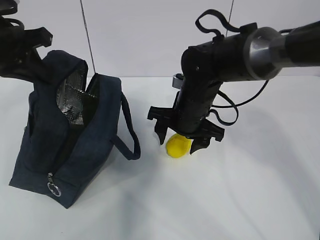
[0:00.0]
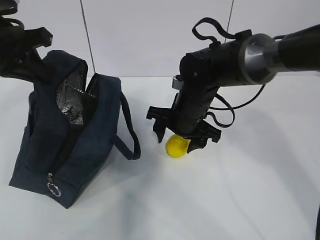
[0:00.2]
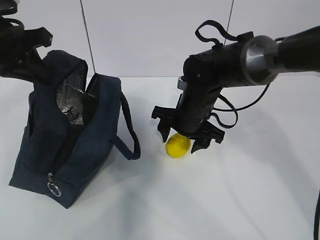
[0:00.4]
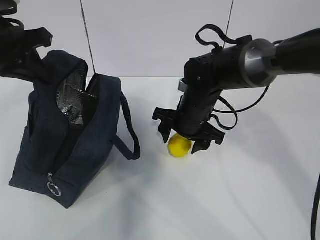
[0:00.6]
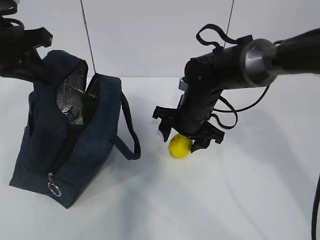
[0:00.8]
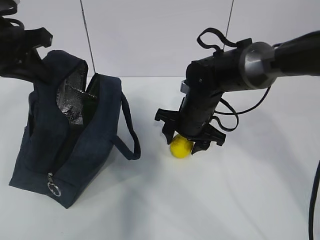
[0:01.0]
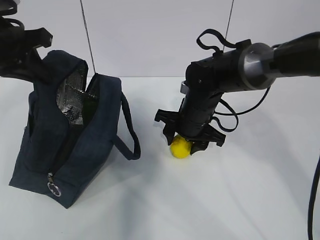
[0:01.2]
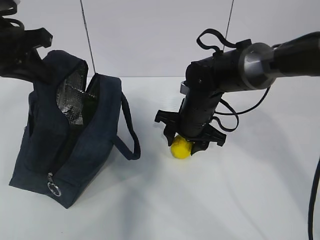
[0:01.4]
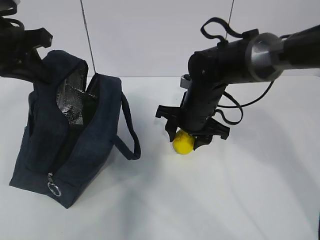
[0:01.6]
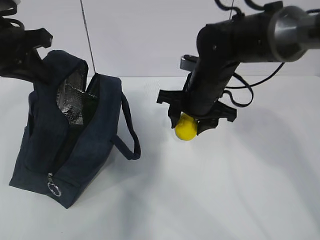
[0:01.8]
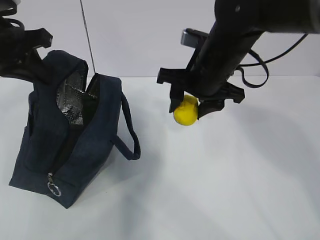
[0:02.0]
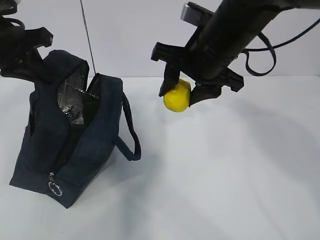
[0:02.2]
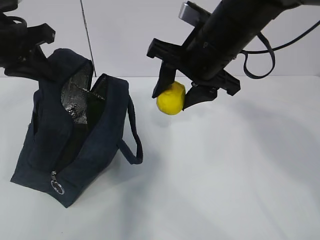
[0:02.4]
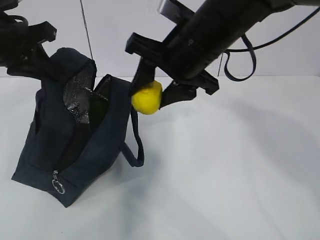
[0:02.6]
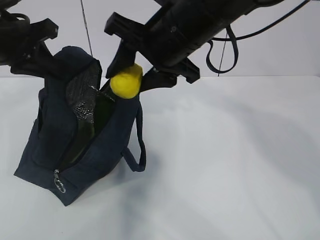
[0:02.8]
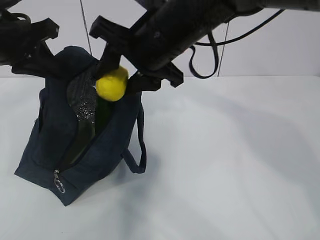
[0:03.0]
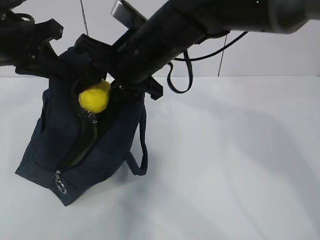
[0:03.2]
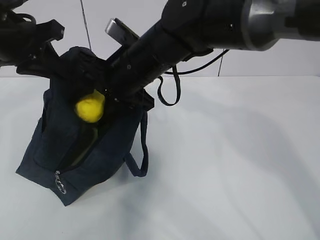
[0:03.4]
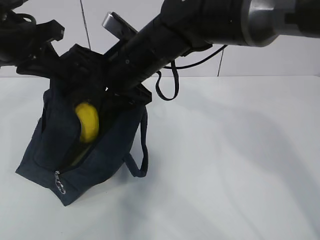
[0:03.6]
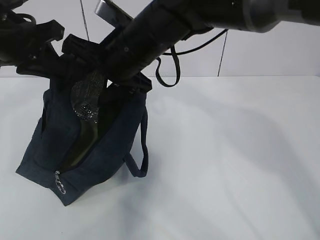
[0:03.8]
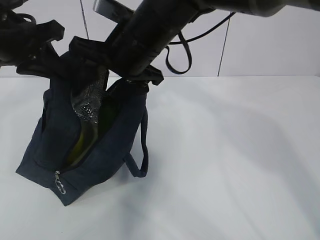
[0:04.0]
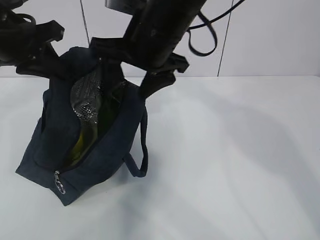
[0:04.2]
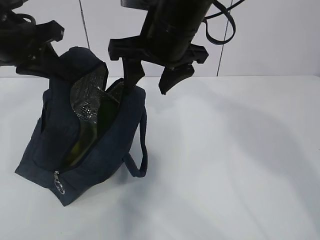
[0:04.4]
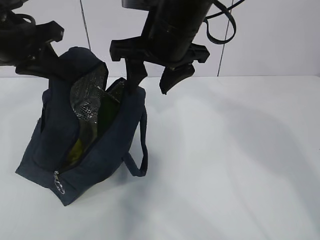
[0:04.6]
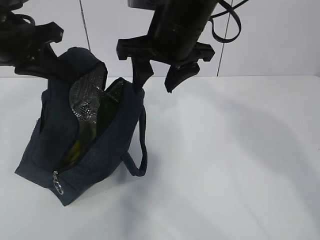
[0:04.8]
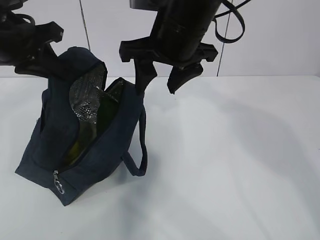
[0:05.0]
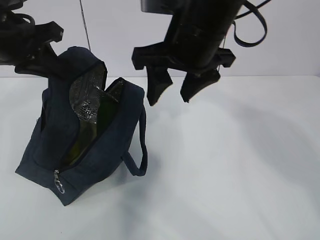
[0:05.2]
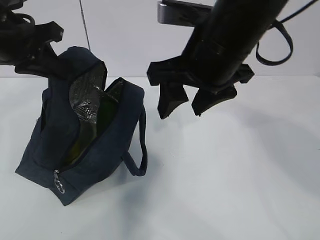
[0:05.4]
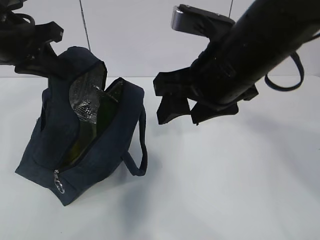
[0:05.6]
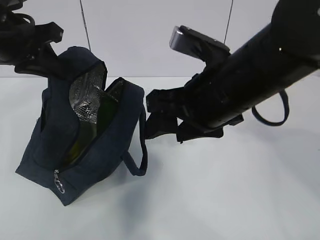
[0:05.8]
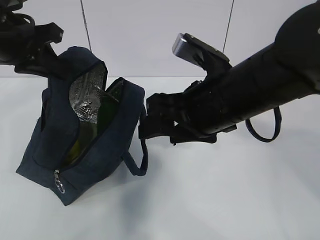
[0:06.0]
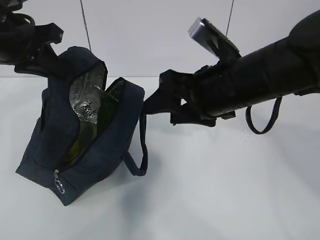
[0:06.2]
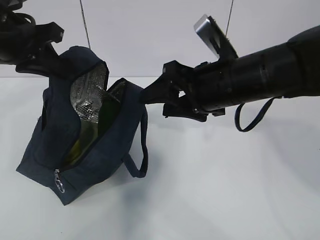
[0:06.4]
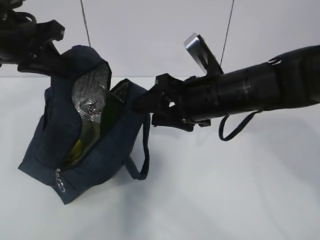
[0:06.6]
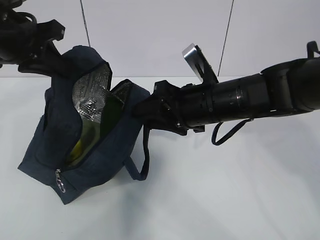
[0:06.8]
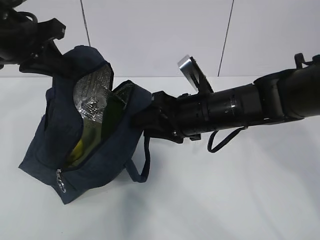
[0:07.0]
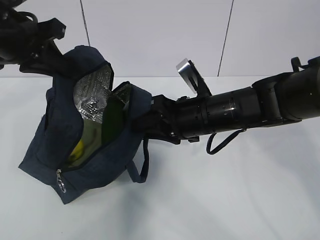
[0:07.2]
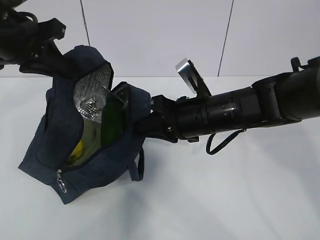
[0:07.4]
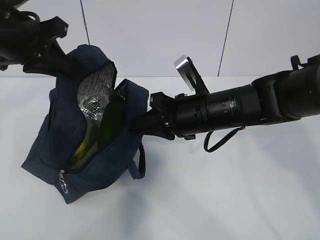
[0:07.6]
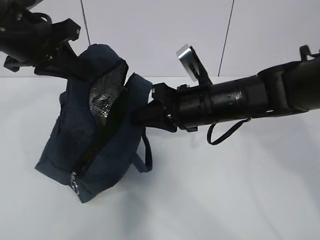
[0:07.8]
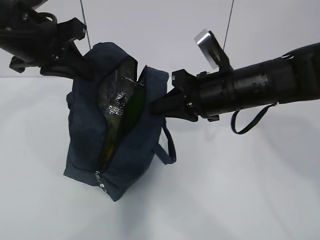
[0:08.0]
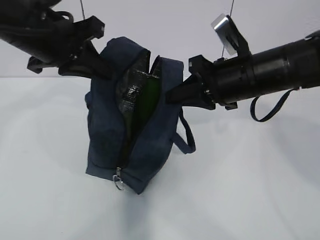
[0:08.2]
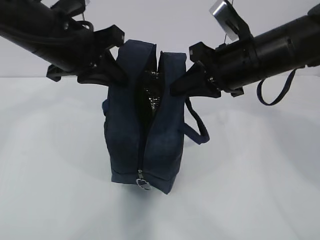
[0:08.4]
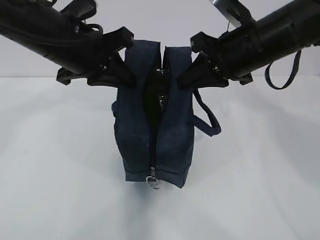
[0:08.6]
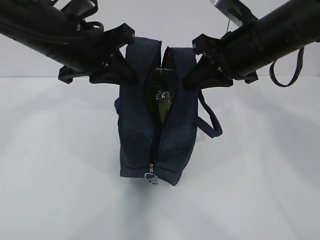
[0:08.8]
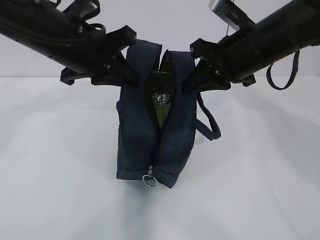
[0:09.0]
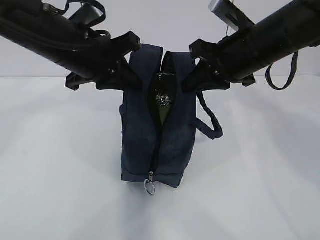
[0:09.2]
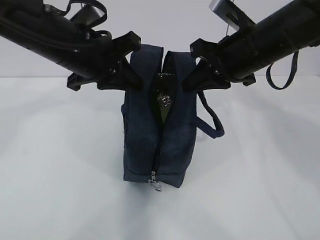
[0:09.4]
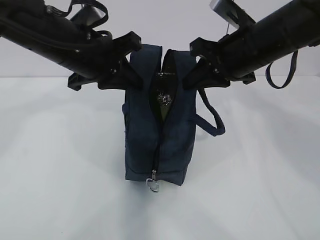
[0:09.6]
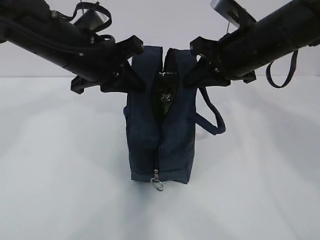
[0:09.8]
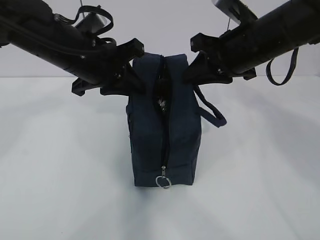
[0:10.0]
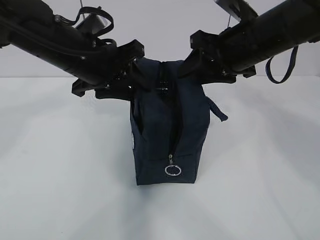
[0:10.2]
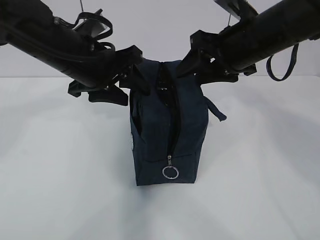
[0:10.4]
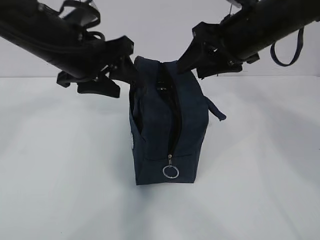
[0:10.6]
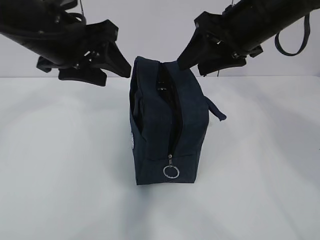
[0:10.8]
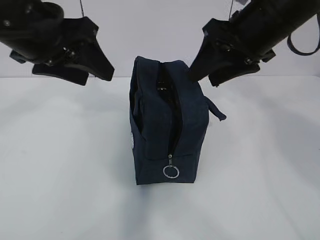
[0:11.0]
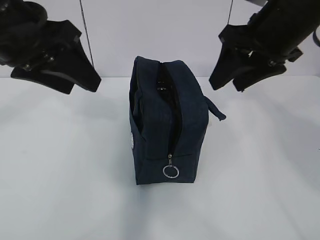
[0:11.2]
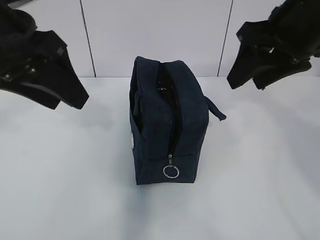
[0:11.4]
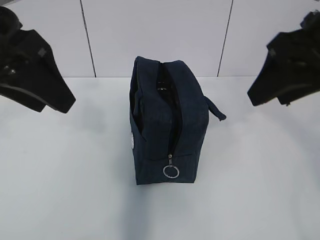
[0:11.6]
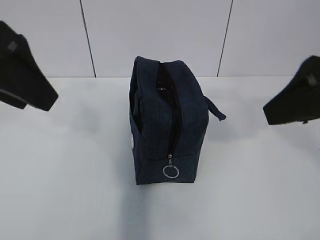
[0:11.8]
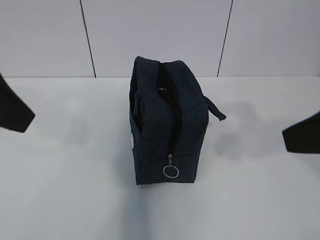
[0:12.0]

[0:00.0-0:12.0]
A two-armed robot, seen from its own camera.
Step, 0:00.0 to 0:01.0: Grab the lunch bag with your right hand.
Step, 0:01.4 to 0:04.0: Move the lunch bag to the right.
0:00.0 to 0:01.6: The grippers stay close to where they were, moving slightly.
0:01.6 to 0:03.0: The right gripper is displaced upward by some 15 cm.
0:04.4 to 0:06.0: The right gripper goes about 10 cm backward, downward and to the right.
0:06.0 to 0:07.6: The right gripper shifts some 10 cm downward and forward, and closes up.
0:07.6 to 0:09.0: The left gripper goes approximately 10 cm to the right. The right gripper is displaced upward and to the right by some 10 cm.
0:09.0 to 0:10.4: The left gripper opens its fingers. The right gripper opens its fingers.
0:10.4 to 0:12.0: The left gripper is displaced backward, upward and to the left by about 20 cm. Meanwhile the right gripper moves backward, some 20 cm.

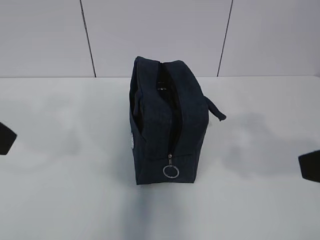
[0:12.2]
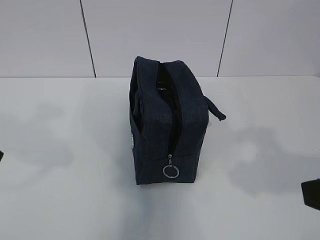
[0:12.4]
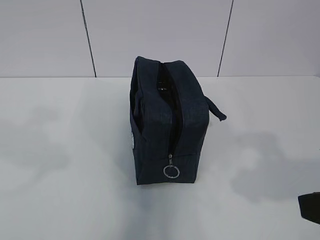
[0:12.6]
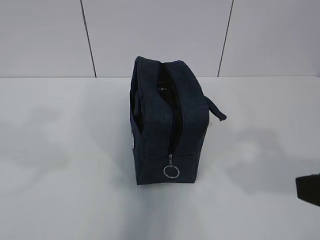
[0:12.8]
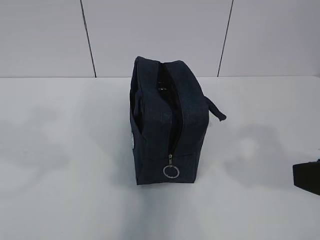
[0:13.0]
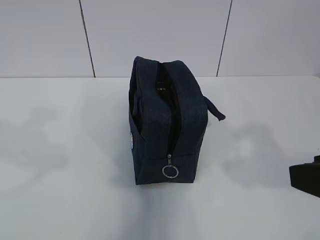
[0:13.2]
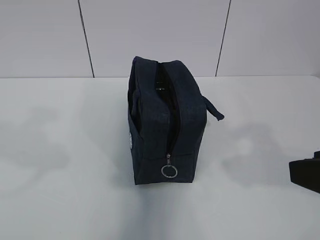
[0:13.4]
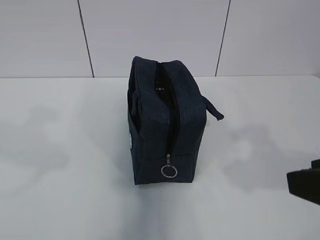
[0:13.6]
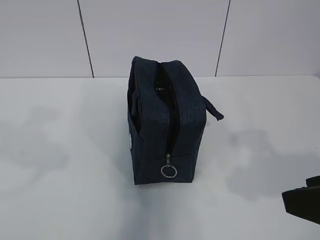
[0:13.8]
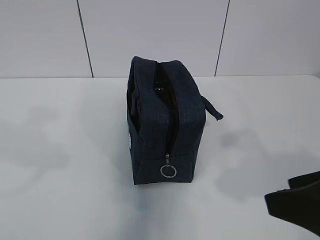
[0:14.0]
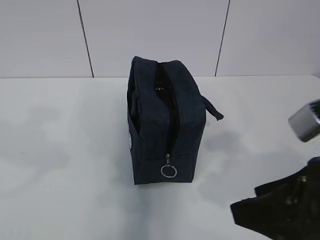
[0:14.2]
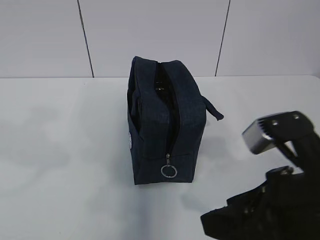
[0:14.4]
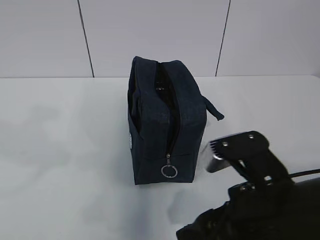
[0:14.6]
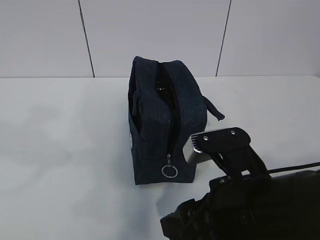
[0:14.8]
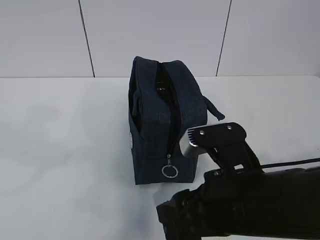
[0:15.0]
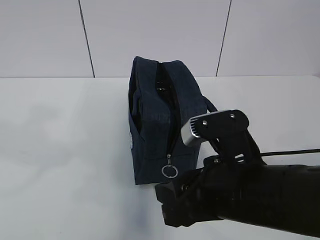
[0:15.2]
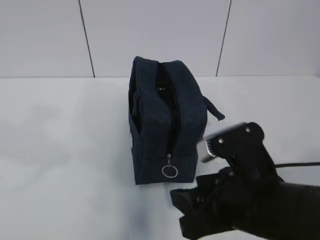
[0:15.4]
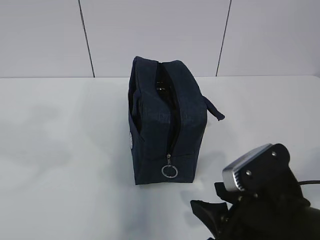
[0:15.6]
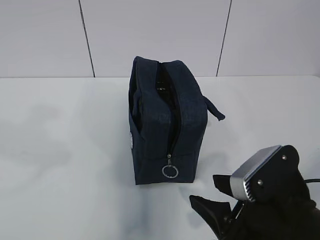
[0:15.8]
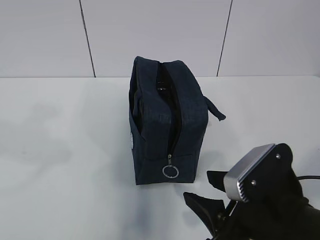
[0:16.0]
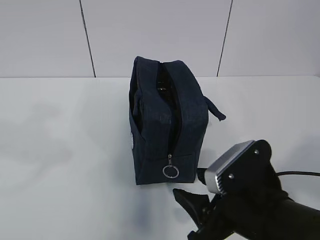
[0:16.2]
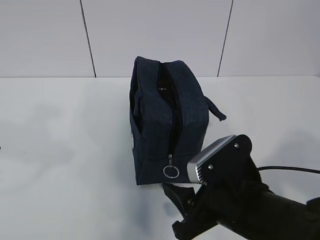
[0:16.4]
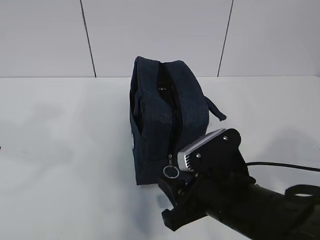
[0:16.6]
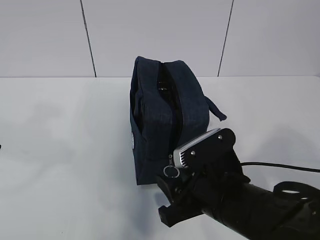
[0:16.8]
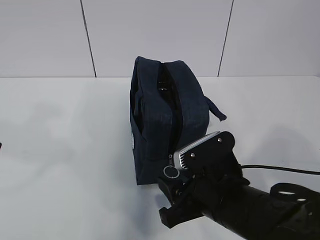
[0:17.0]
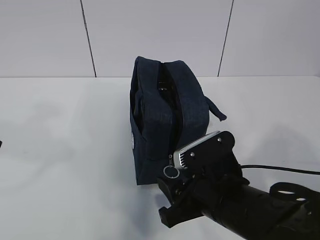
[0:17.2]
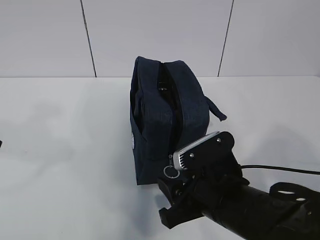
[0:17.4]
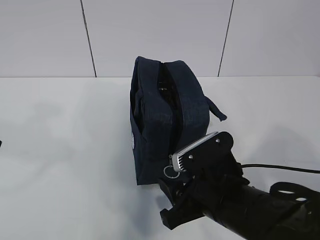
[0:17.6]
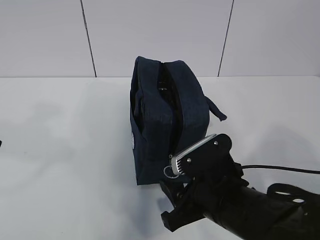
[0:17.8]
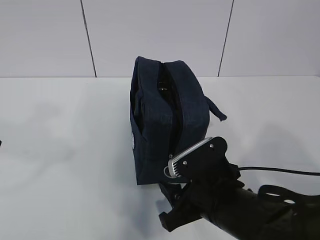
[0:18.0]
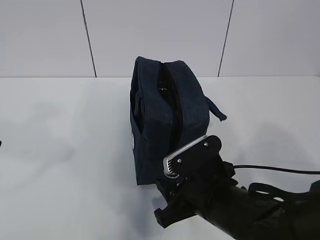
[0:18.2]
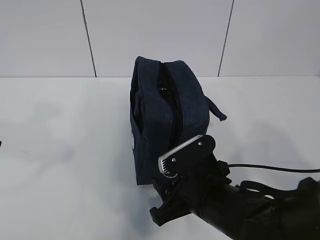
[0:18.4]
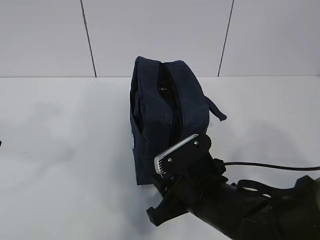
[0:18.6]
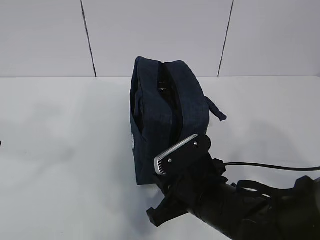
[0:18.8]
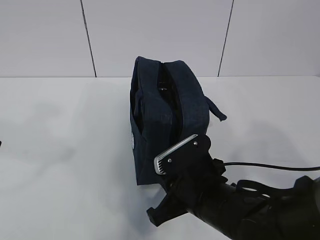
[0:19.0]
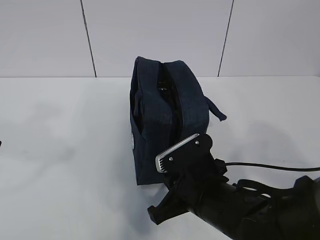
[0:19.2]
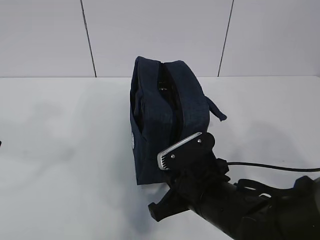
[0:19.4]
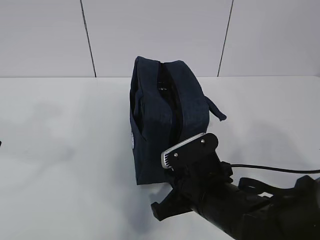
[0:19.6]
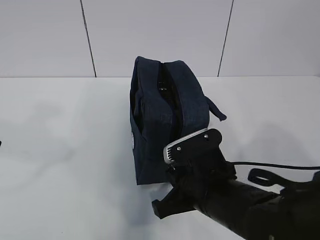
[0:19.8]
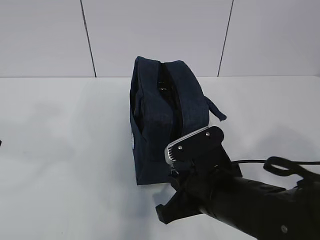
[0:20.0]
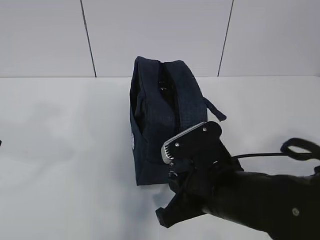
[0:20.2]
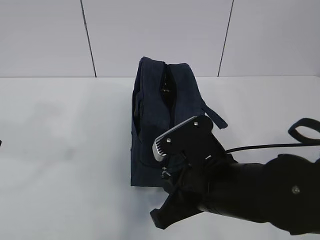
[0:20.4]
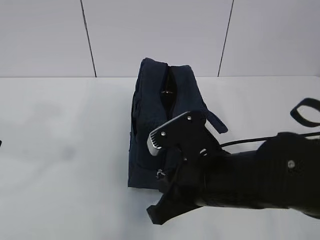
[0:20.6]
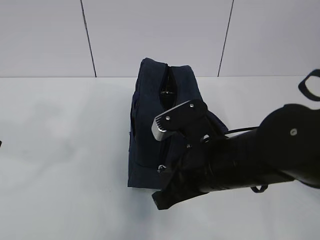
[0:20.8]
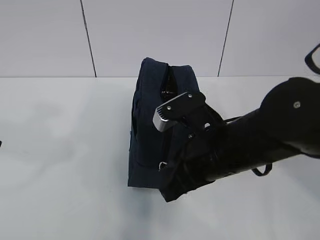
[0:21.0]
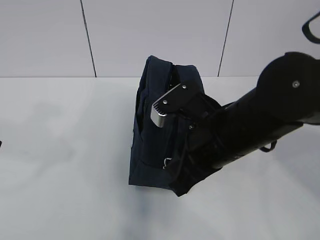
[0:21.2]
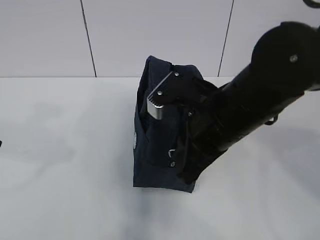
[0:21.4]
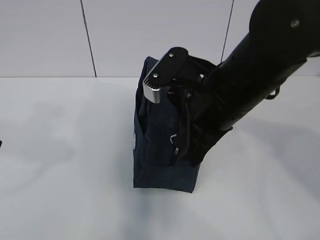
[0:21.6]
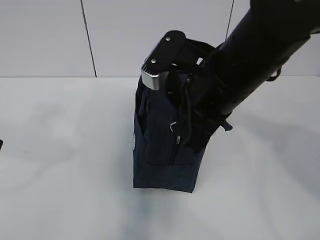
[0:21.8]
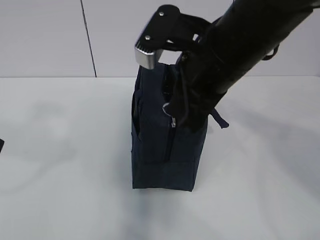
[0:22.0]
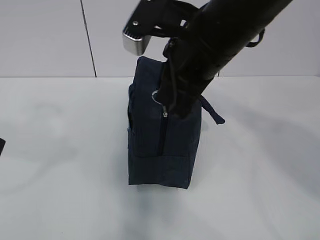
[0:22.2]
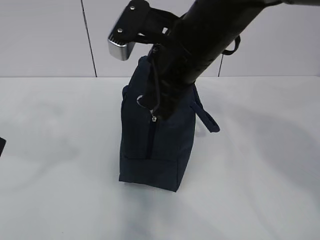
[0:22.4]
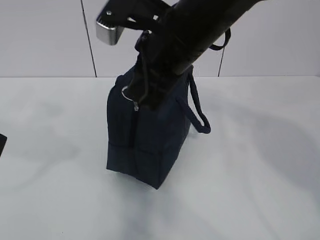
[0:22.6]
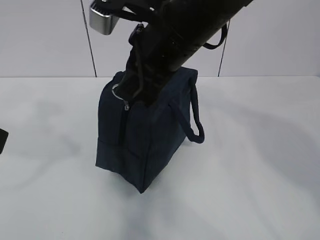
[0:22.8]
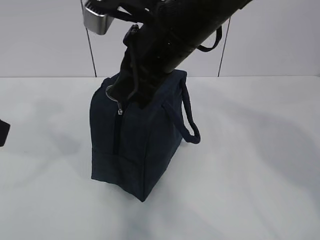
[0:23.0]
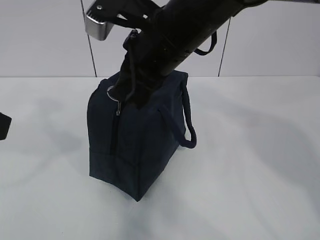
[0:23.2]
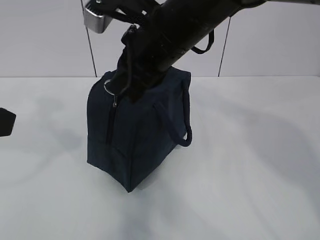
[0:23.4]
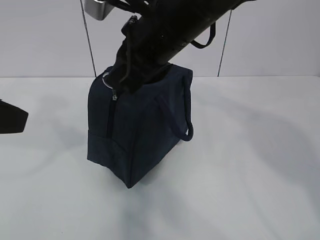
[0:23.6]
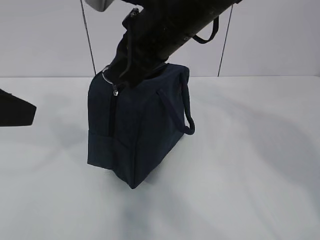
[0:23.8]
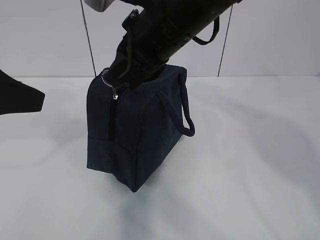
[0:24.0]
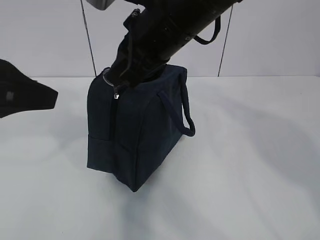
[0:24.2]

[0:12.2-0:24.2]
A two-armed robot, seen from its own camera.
0:12.2 to 0:13.8: There are only small adjustments of the grippers.
0:13.8 to 0:15.2: The right gripper moves to the left, downward and forward, about 15 cm.
0:15.2 to 0:16.6: The right gripper is displaced downward by roughly 5 cm.
0:16.6 to 0:18.2: The grippers move only a little.
0:18.2 to 0:19.8: The right gripper closes.
0:19.8 to 0:21.2: The right gripper heads upward, covering some 10 cm.
0:21.2 to 0:22.6: The right gripper heads upward and forward, covering some 10 cm.
0:22.6 to 0:24.2: The left gripper shifts about 5 cm forward.
